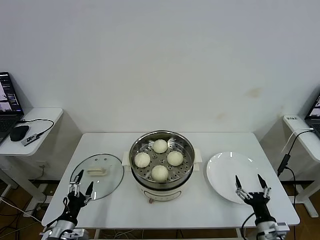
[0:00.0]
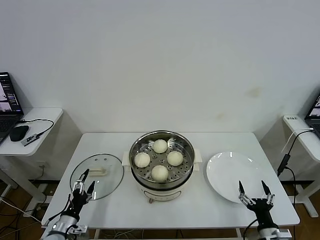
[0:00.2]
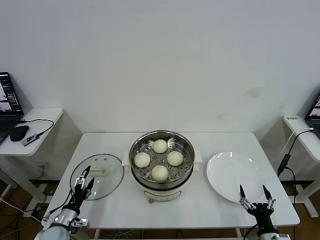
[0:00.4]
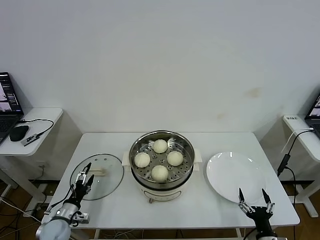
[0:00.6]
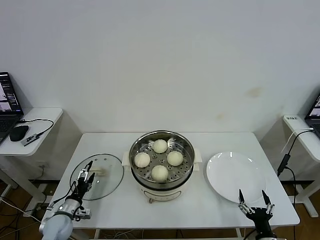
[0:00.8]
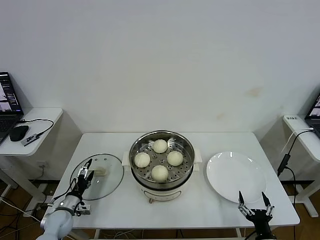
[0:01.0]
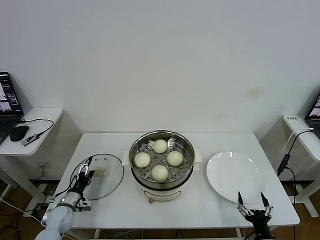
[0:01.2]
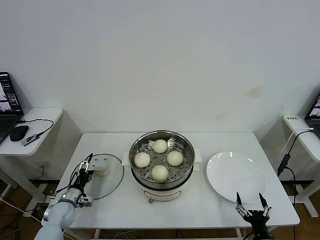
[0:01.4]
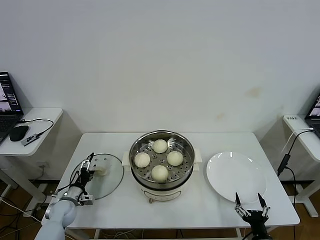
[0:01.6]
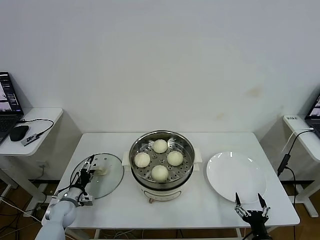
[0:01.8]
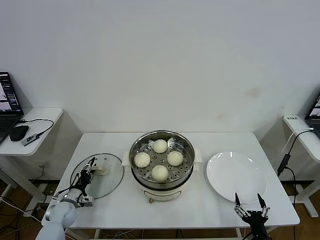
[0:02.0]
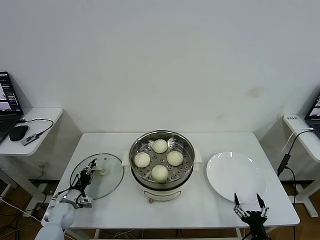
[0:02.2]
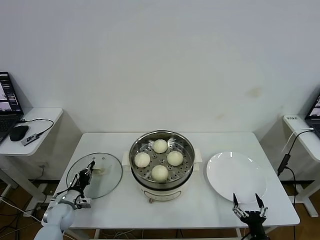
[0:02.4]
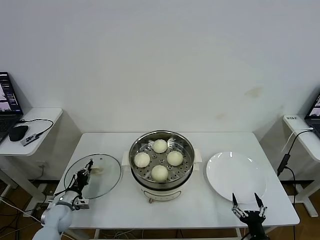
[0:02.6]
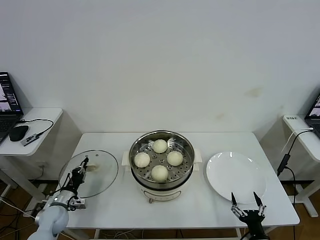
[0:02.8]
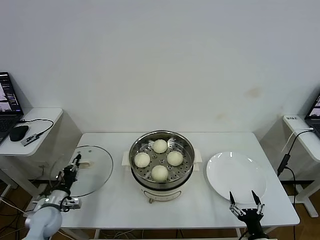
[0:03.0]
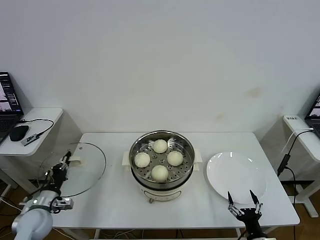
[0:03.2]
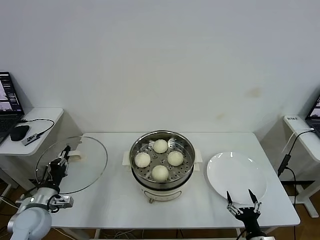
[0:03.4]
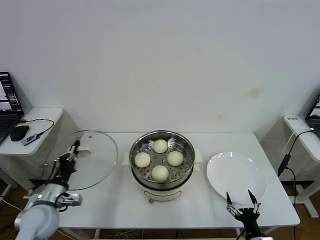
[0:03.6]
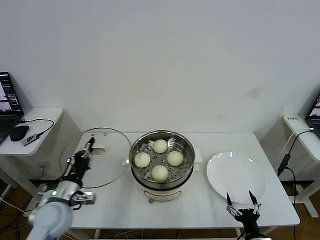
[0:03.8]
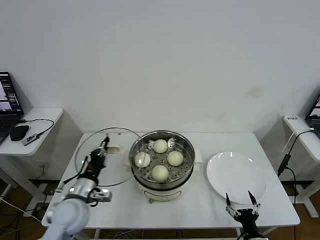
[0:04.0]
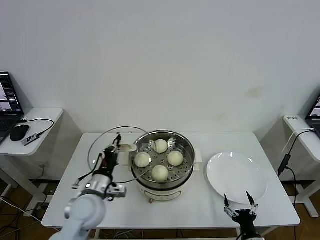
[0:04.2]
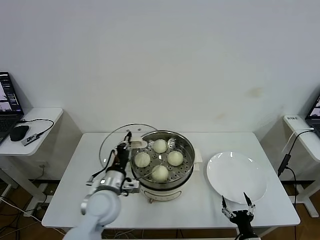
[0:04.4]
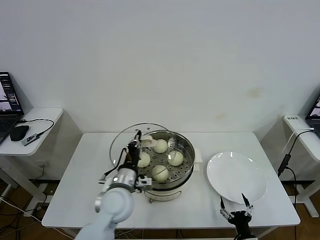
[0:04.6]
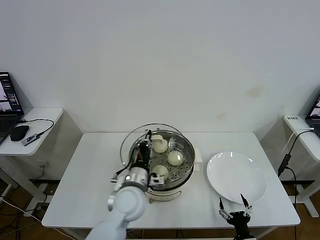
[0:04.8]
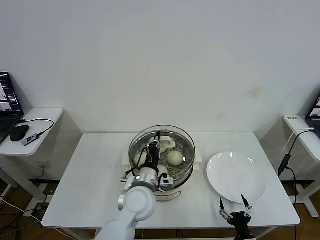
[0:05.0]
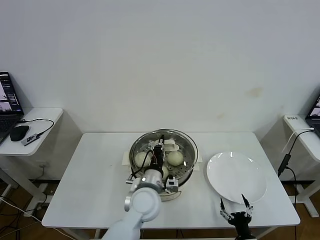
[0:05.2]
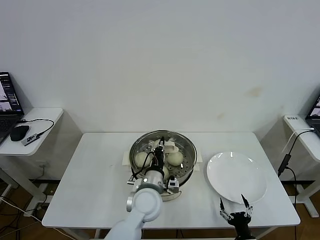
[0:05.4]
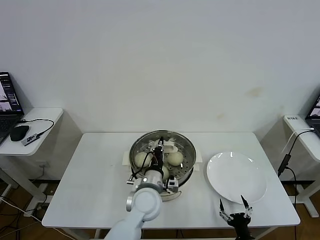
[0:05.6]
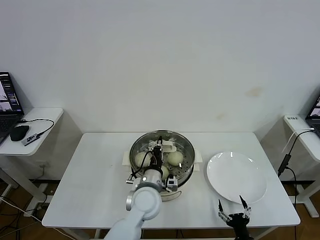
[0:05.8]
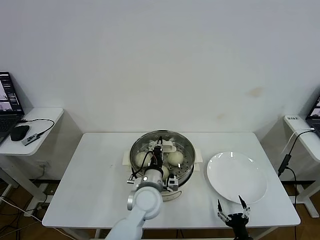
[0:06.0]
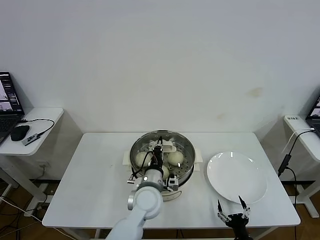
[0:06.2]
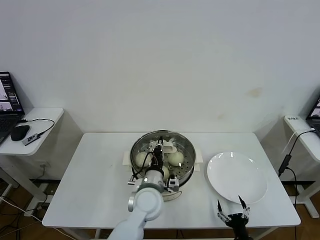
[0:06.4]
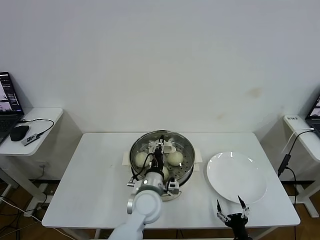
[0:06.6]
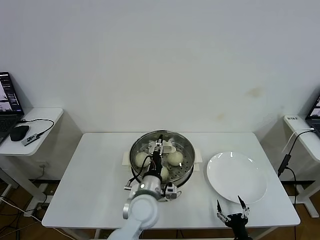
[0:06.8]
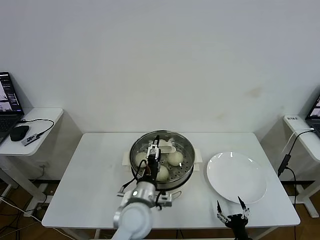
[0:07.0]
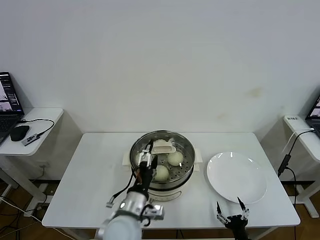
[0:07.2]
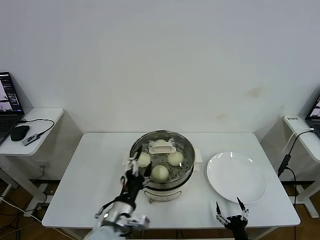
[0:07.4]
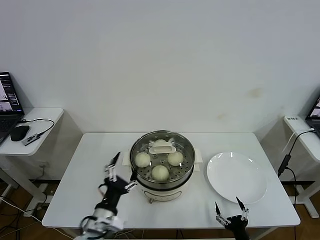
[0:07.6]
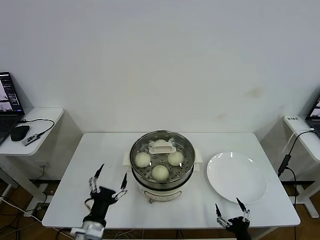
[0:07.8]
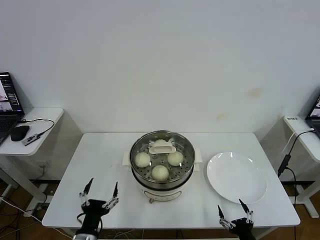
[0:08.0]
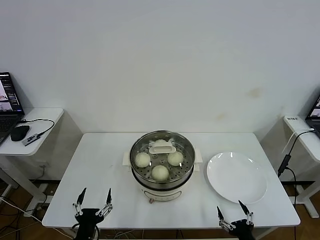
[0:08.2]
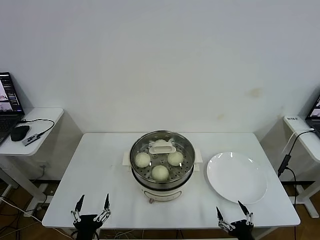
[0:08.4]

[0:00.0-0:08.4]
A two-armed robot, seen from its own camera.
Task of the whole recording: take steamed baozi put them in steamer then cover it.
Step, 0:00.0 to 0:02.4: Grasp the pot lid with left gripper.
Step, 0:02.6 to 0:06.6: Place the pot lid on the steamer with left gripper.
0:00.0 to 0:01.4: The right gripper moves roughly 5 cm. Meanwhile the left gripper travels forward by some 15 cm.
0:01.4 to 0:02.8: The left gripper closes its fingers.
0:02.8 to 0:04.2: The left gripper shifts some 25 cm to the right and upward.
0:04.2 to 0:05.6: The left gripper is displaced to the right by approximately 20 cm.
0:05.6 to 0:07.0: The left gripper opens.
0:07.0 to 0:08.4: The right gripper shifts approximately 10 cm upward. Meanwhile the left gripper moves backward, to the left and downward, some 25 cm.
